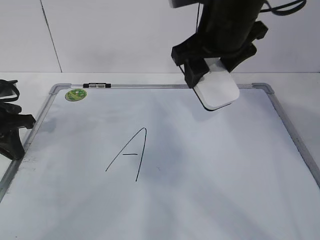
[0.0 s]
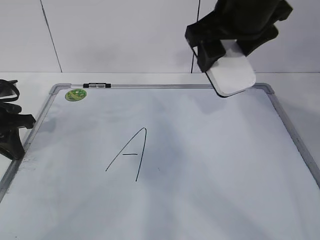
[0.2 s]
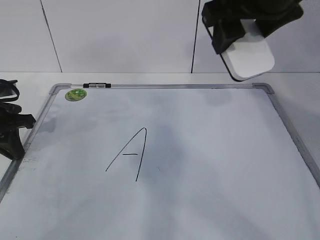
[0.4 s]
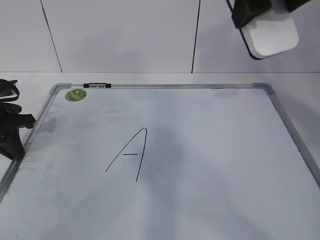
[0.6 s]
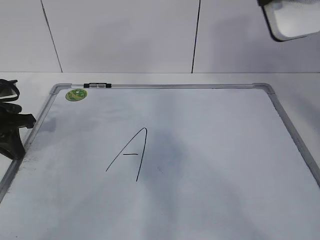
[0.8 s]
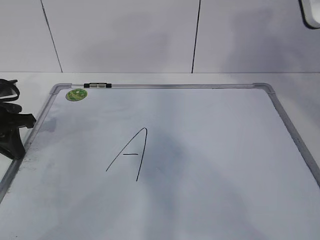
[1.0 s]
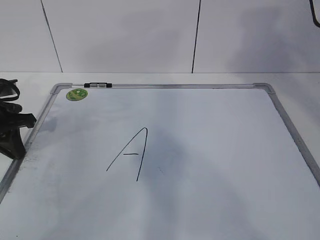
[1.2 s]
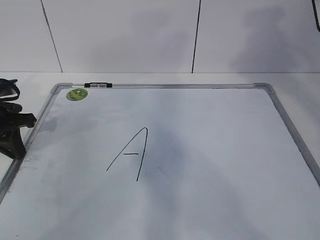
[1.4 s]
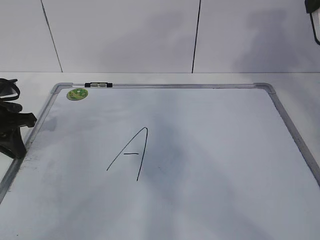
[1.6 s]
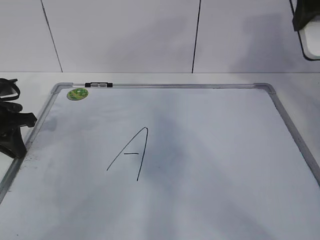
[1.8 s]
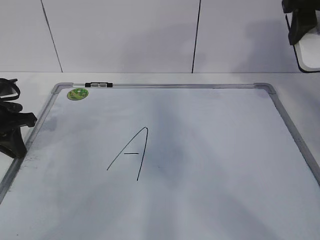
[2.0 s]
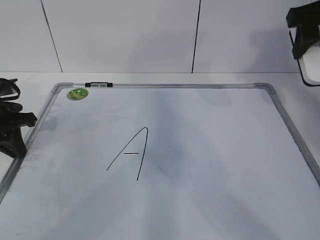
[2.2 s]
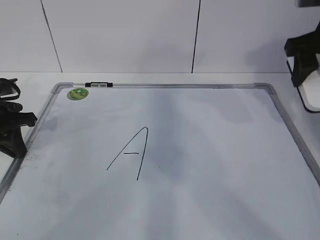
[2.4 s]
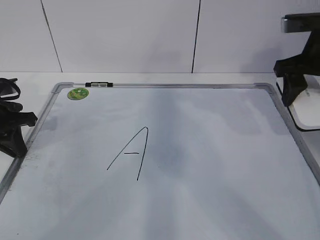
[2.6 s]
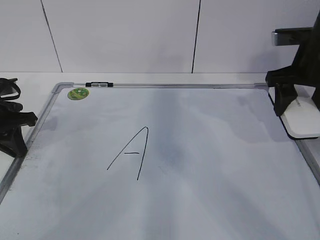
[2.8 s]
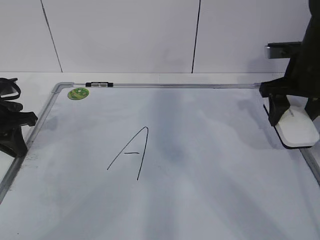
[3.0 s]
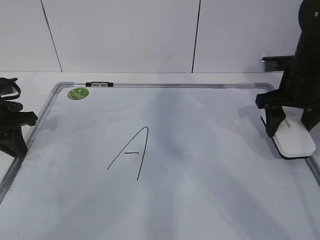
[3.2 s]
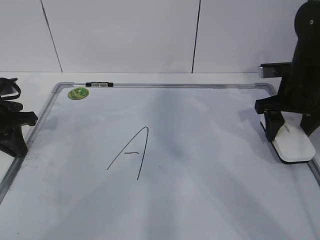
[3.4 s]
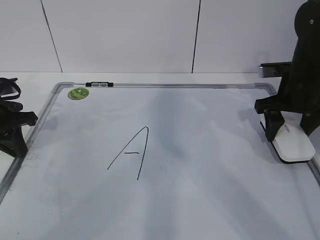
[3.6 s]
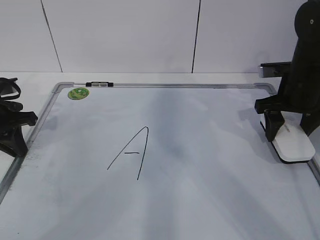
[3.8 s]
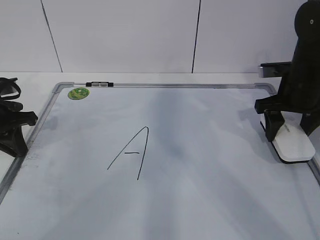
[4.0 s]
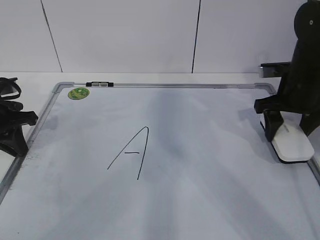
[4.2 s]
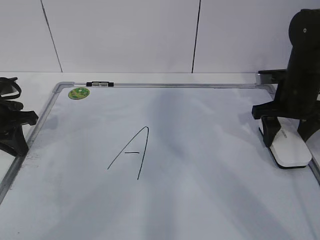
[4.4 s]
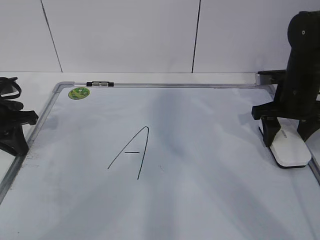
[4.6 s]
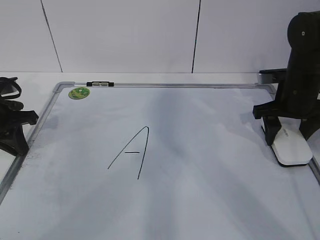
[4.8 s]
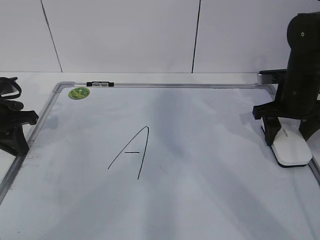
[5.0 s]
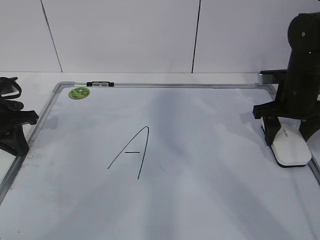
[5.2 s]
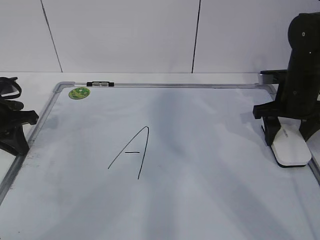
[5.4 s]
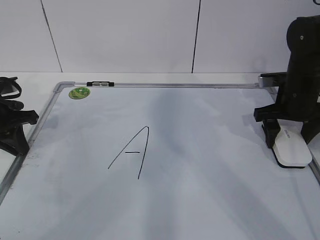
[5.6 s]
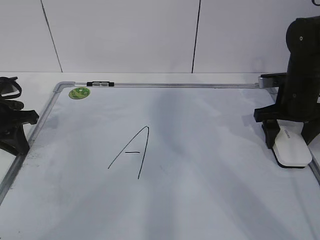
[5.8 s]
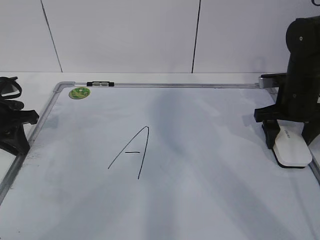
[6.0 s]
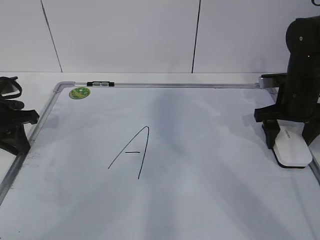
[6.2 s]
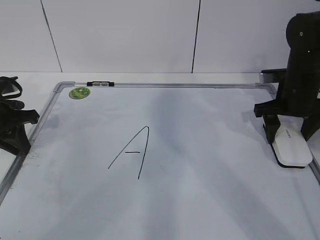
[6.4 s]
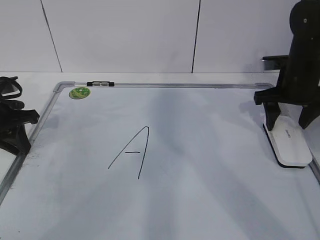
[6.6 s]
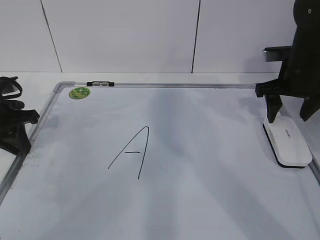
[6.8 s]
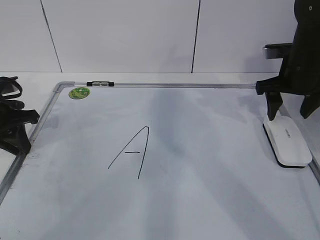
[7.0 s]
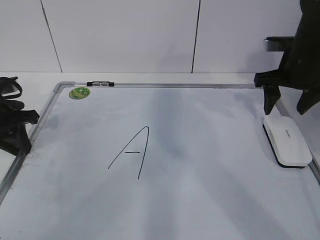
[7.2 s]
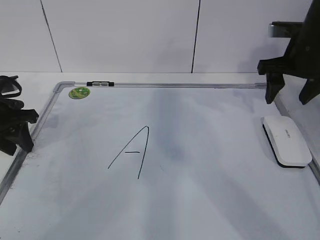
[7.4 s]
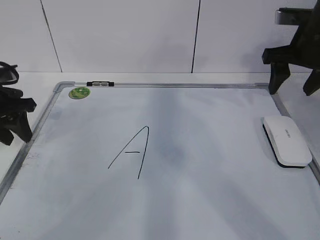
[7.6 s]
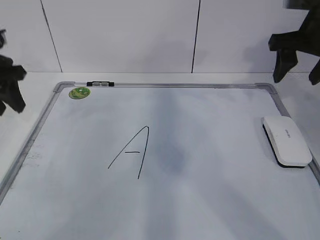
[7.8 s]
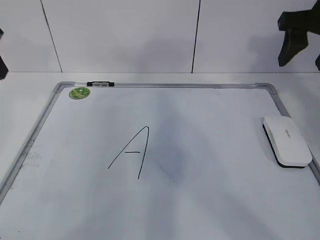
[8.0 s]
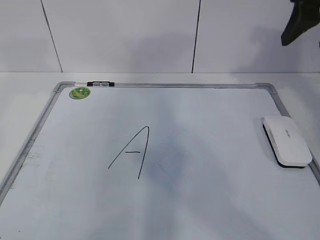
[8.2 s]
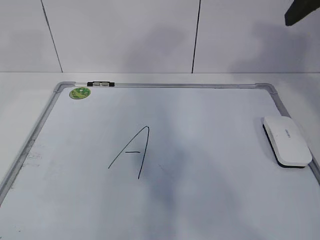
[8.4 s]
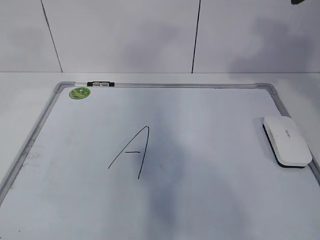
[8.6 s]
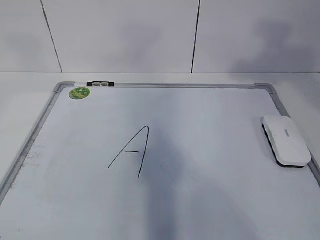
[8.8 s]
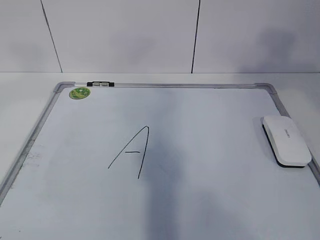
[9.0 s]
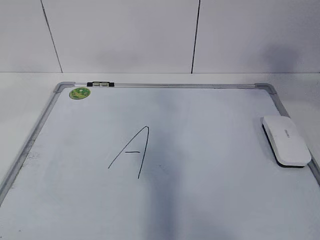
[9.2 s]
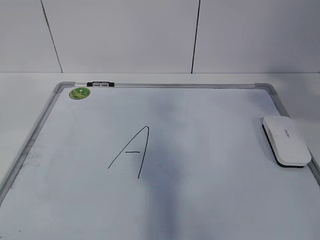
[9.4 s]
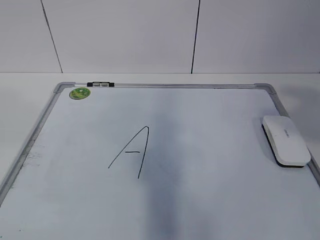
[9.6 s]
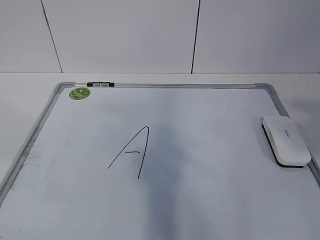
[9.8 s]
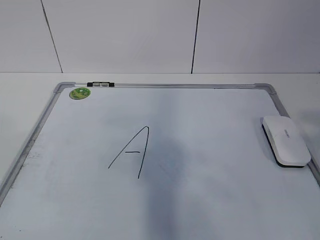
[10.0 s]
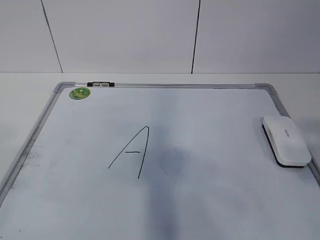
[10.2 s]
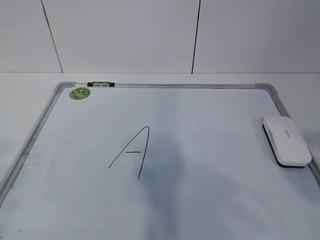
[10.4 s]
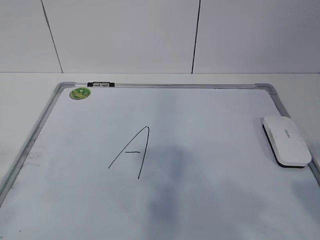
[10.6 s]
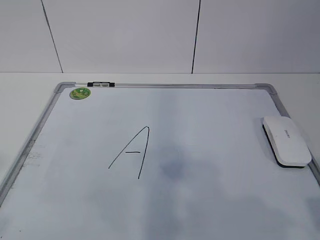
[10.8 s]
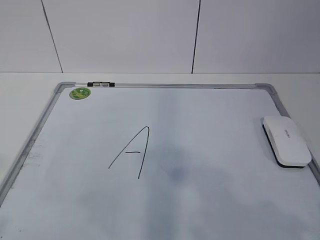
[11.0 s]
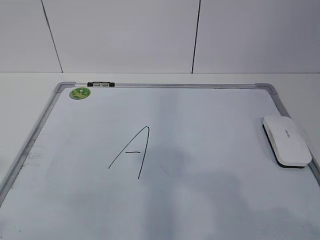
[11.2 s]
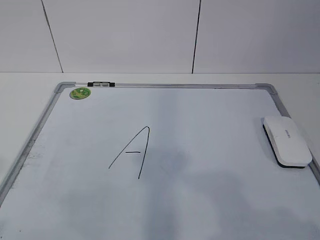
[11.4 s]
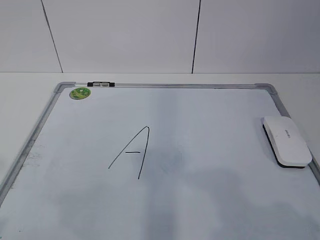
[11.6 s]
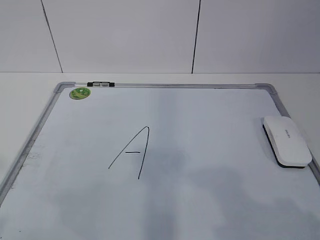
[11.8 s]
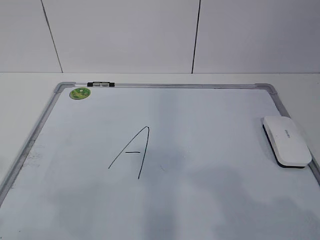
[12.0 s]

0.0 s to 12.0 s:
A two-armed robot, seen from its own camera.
Task of the whole recording: pick up the eraser on the blackboard and erase the letter "a".
0.0 to 1.6 s: The right gripper travels to the right and upward by some 15 cm.
1.6 to 3.0 s: The right gripper goes some 20 cm downward.
3.0 to 4.4 s: The right gripper moves downward, about 5 cm.
4.4 to 6.0 s: The right gripper opens.
6.0 to 7.6 s: The left gripper opens, while the right gripper is displaced upward by approximately 10 cm, and closes up.
7.6 to 9.0 s: The right gripper moves backward and upward, approximately 25 cm. Meanwhile the left gripper goes some 40 cm upward and backward.
9.0 to 10.4 s: The right gripper moves backward and downward, about 20 cm.
10.4 to 12.0 s: The two grippers go about 10 cm downward.

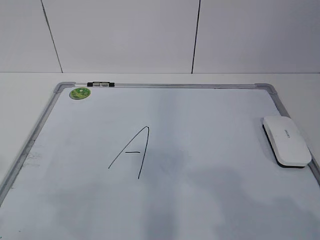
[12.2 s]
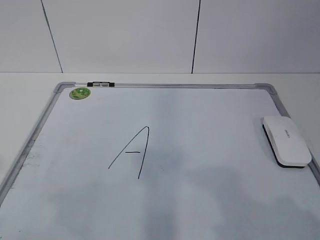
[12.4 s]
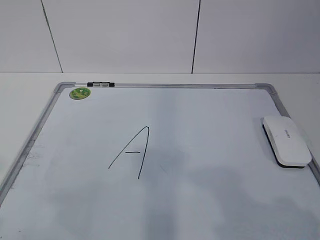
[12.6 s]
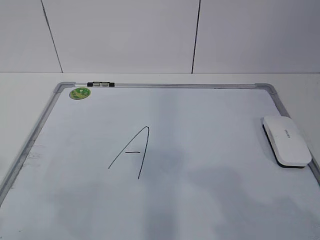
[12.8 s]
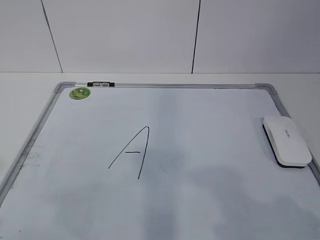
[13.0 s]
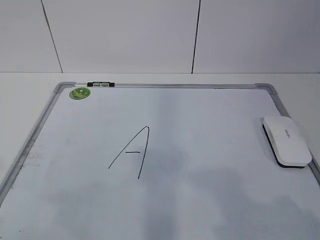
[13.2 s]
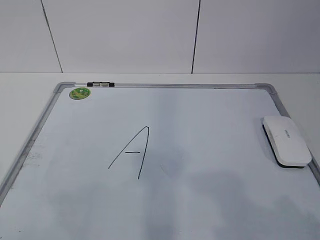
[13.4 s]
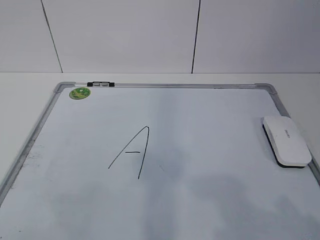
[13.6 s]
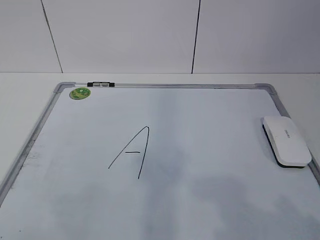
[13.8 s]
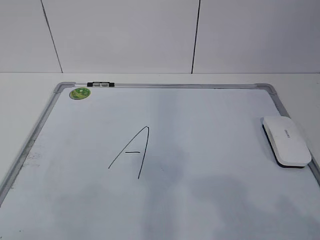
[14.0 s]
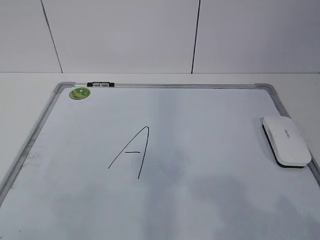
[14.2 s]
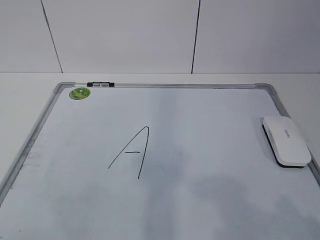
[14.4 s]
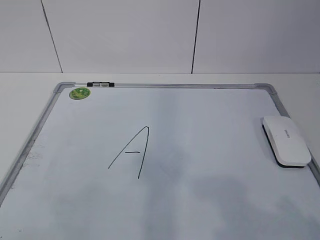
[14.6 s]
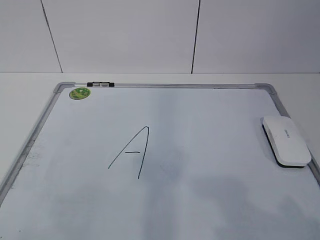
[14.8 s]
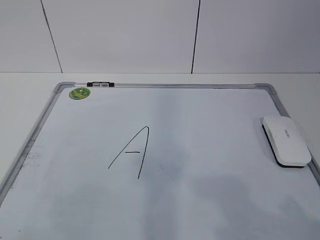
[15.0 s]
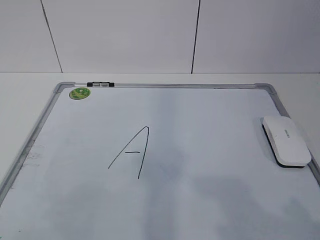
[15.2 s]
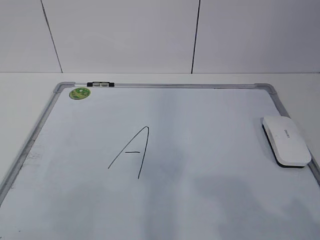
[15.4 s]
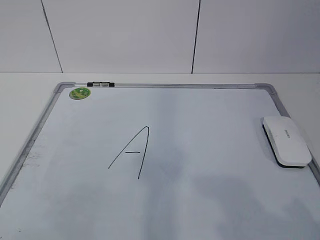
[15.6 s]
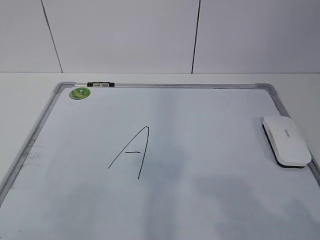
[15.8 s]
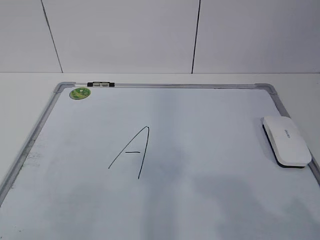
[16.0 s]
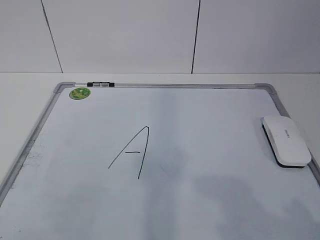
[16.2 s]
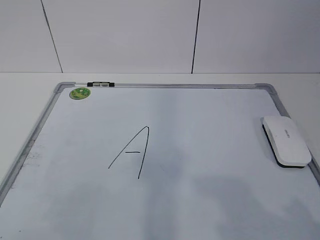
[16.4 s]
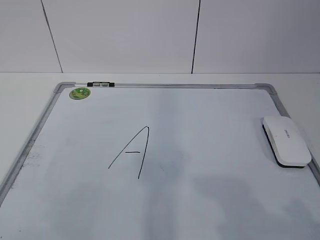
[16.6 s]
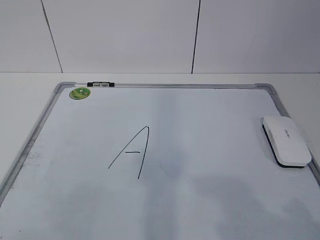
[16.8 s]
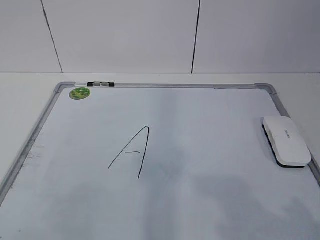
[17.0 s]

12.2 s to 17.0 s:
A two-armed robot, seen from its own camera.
Task of the whole recording: pick up the eraser on the blackboard and erase the letter "a".
15.4 to 17.0 s: Neither gripper changes place.

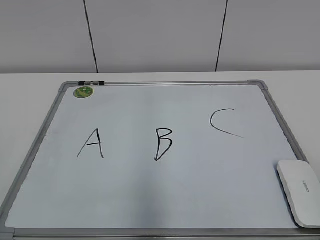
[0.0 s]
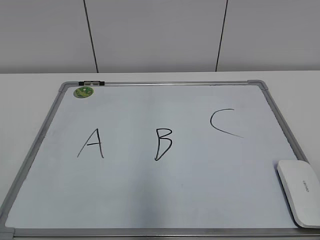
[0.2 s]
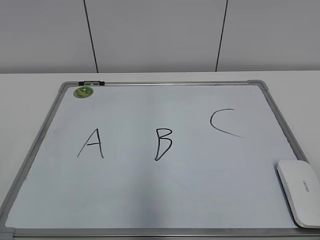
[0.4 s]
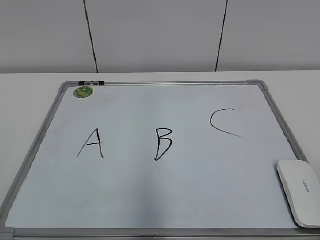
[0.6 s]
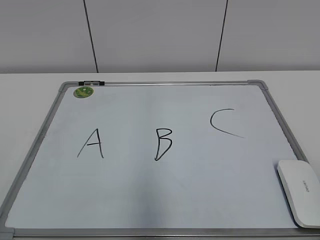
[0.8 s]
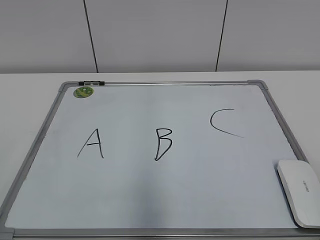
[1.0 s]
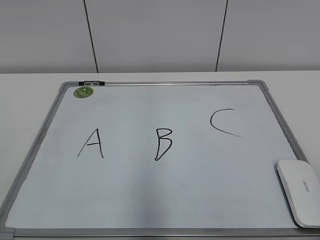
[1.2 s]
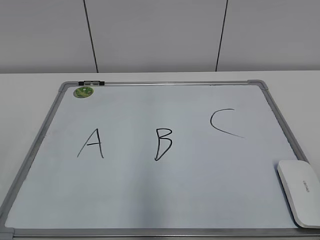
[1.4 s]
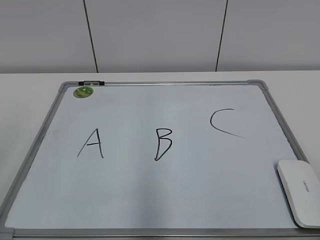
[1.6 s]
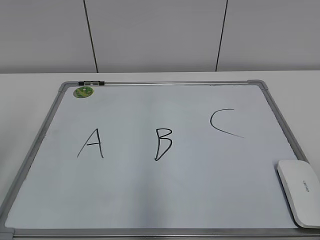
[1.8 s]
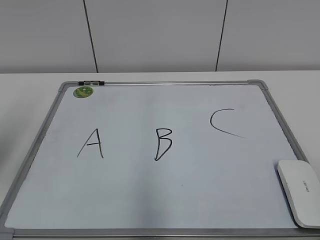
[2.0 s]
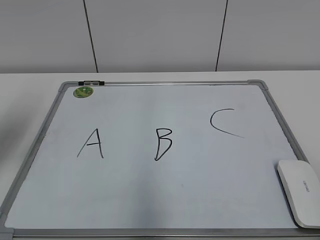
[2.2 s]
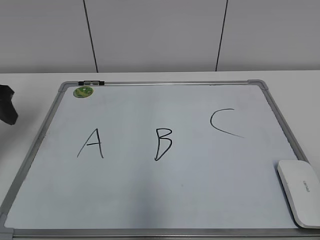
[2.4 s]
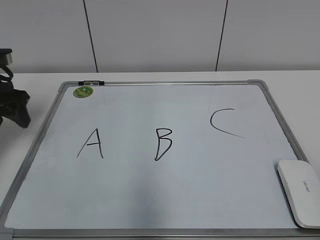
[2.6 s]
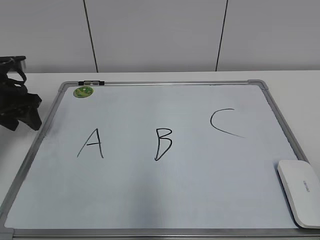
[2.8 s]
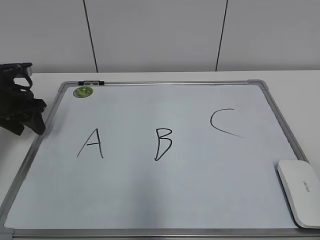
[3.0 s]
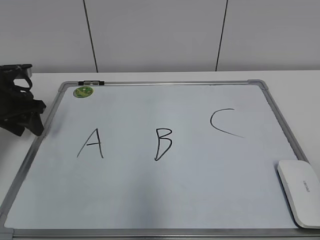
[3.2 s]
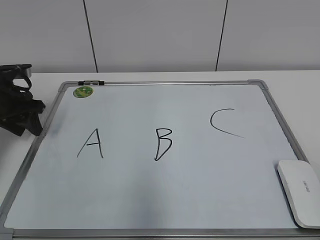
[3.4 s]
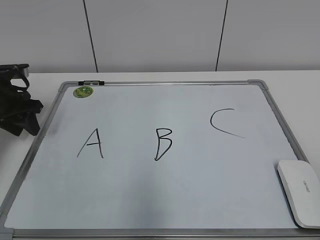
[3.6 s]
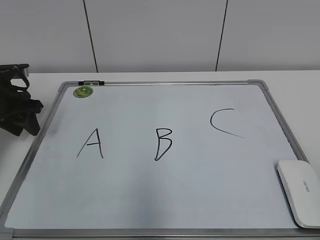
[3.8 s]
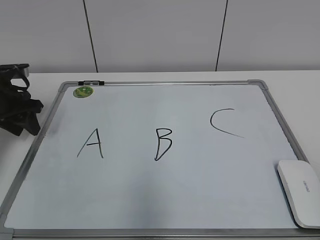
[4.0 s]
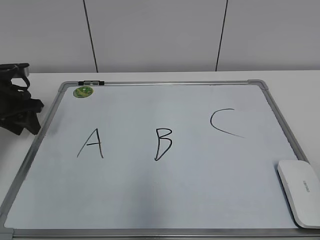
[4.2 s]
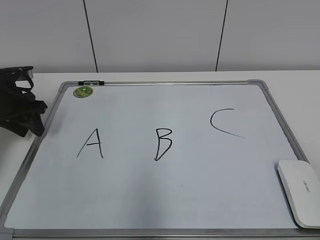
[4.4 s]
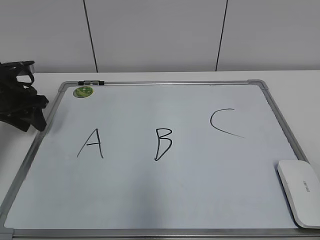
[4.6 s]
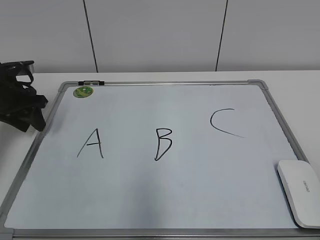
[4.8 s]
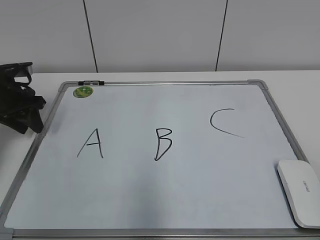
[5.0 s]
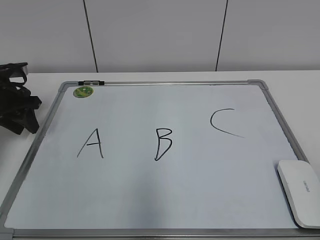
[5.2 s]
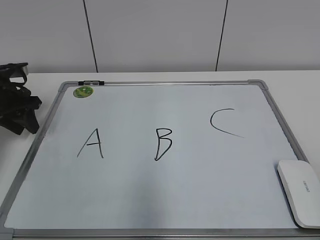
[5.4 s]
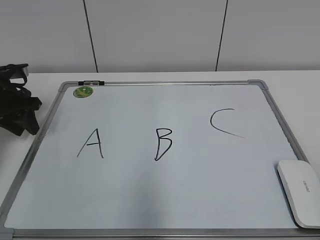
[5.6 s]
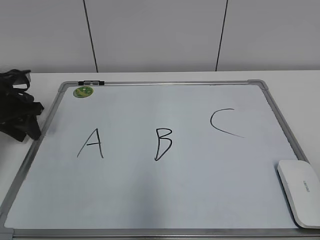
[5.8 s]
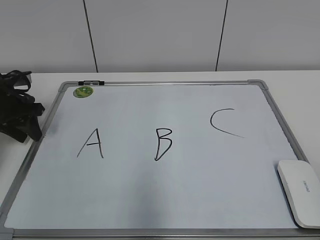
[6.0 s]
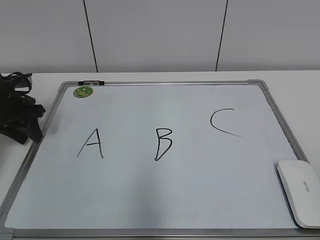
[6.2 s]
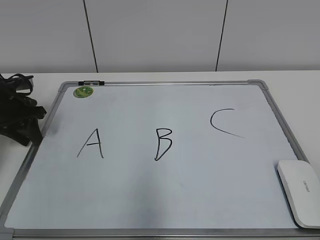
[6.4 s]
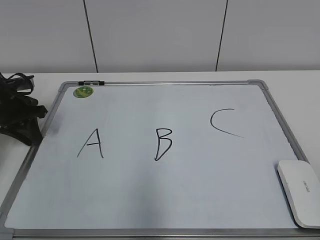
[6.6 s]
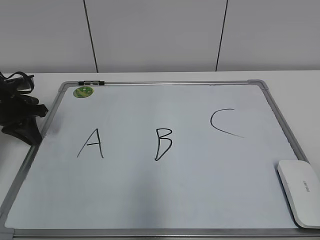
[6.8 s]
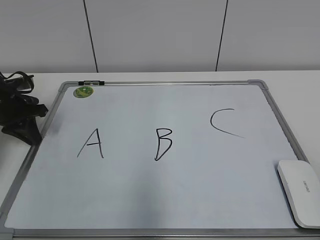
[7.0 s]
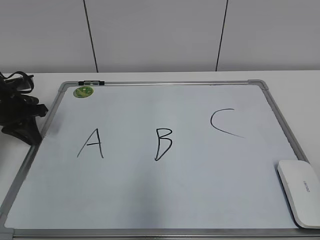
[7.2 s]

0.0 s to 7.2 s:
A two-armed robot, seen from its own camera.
Task of the whole recording: pick up the eraser on the blackboard and erase the letter "B".
Step, 0.0 to 6.6 s: Hold the drawing board steady with your left hand.
1.4 to 2.8 s: The left gripper moves forward, approximately 35 cm.
2.8 to 4.4 s: The grippers stay close to where they were, moving slightly.
4.4 to 5.8 s: Both grippers stay put.
5.8 to 7.2 s: The left gripper closes its fingers.
